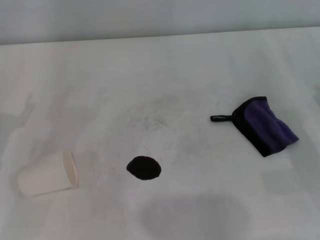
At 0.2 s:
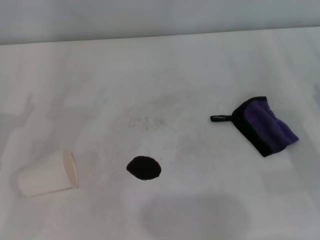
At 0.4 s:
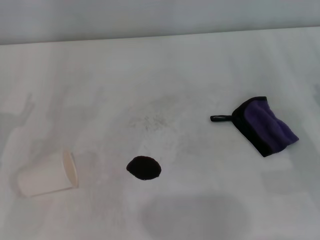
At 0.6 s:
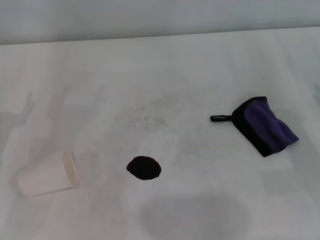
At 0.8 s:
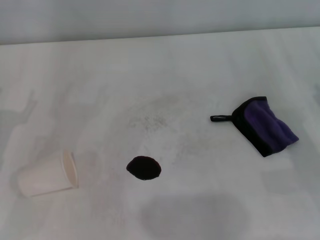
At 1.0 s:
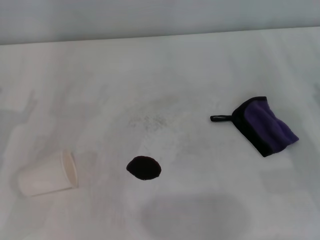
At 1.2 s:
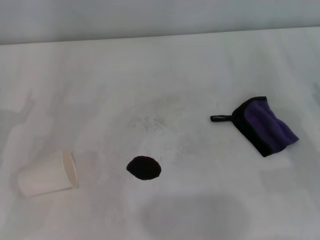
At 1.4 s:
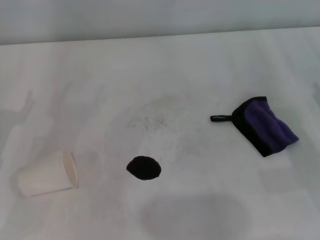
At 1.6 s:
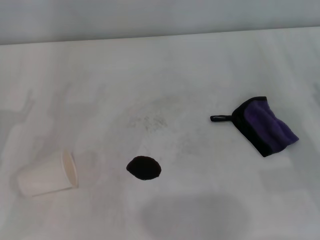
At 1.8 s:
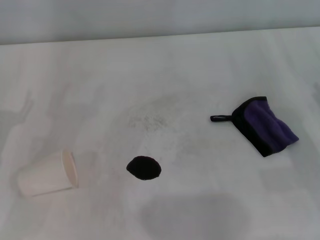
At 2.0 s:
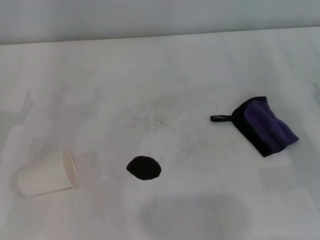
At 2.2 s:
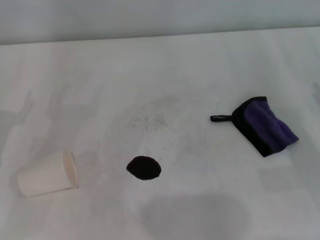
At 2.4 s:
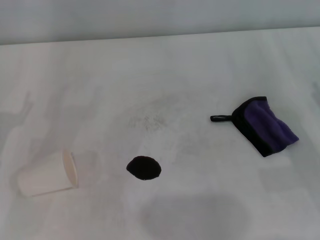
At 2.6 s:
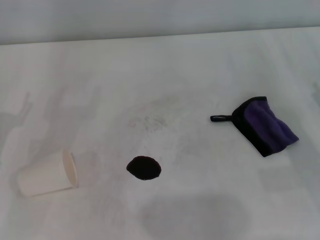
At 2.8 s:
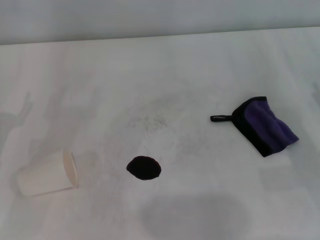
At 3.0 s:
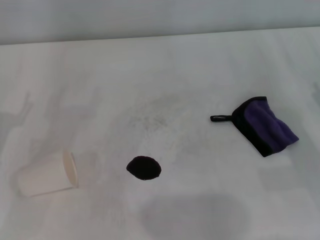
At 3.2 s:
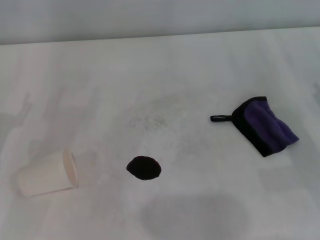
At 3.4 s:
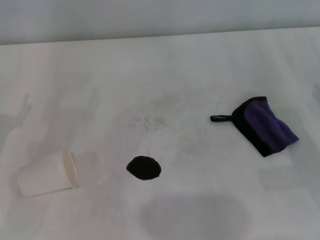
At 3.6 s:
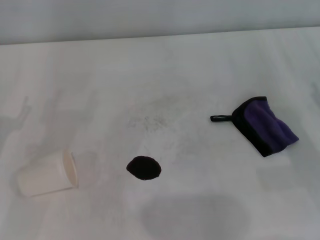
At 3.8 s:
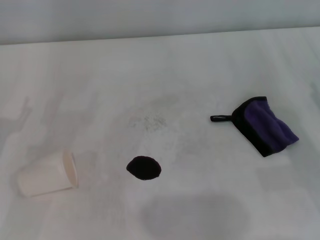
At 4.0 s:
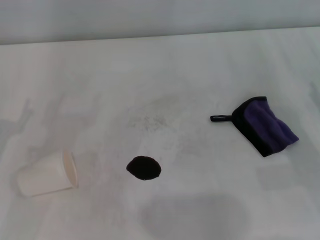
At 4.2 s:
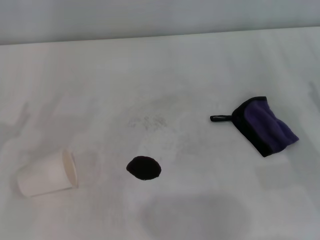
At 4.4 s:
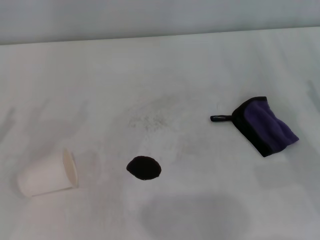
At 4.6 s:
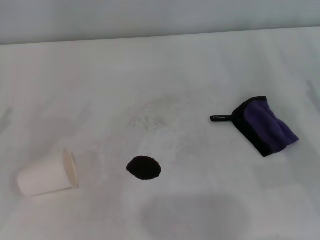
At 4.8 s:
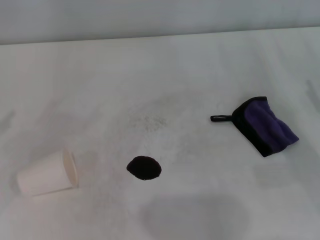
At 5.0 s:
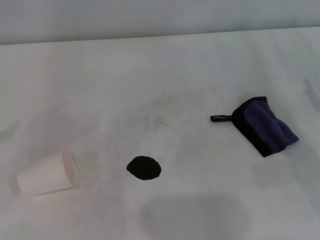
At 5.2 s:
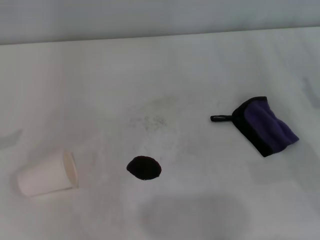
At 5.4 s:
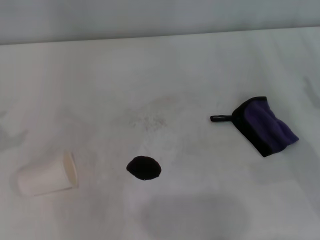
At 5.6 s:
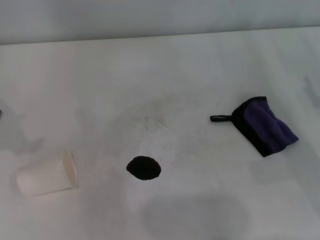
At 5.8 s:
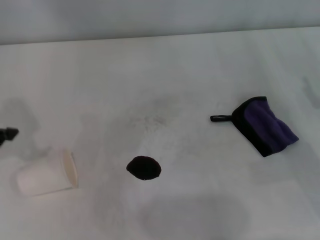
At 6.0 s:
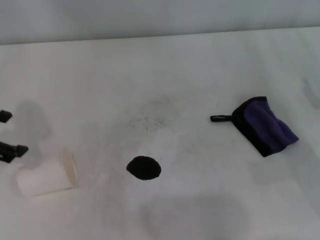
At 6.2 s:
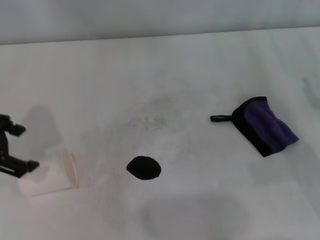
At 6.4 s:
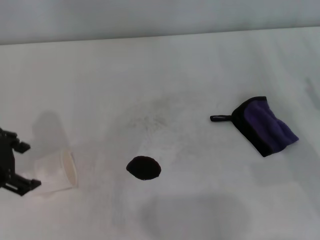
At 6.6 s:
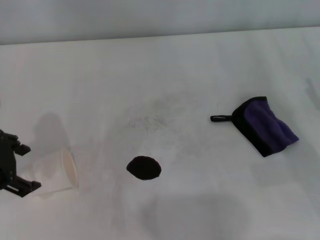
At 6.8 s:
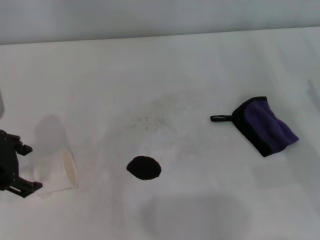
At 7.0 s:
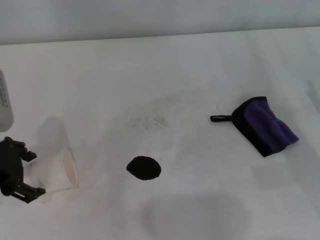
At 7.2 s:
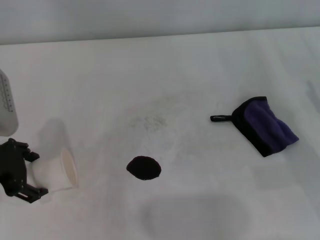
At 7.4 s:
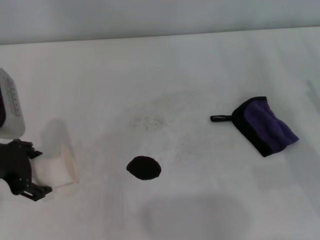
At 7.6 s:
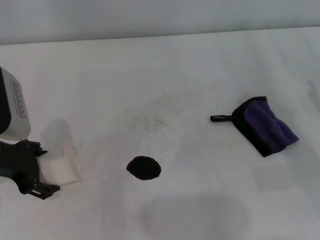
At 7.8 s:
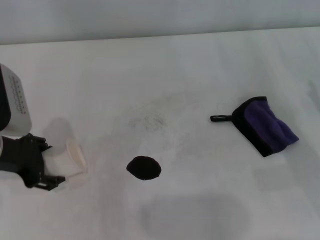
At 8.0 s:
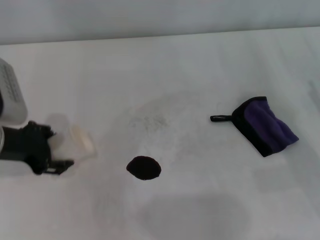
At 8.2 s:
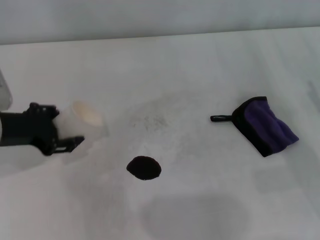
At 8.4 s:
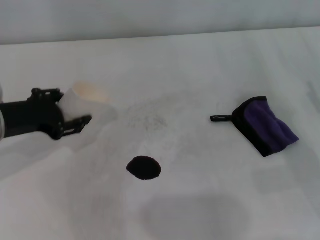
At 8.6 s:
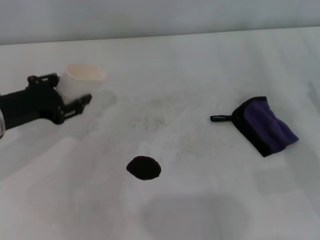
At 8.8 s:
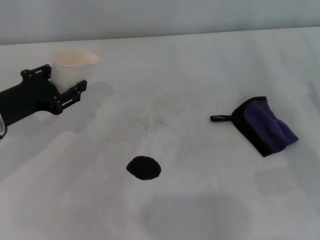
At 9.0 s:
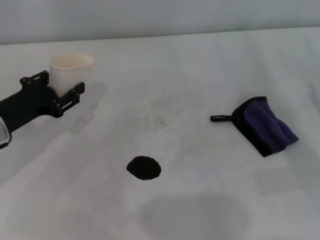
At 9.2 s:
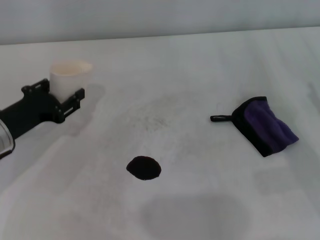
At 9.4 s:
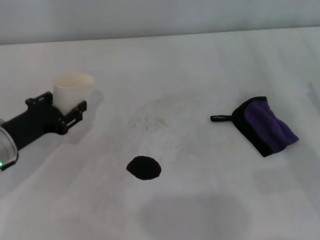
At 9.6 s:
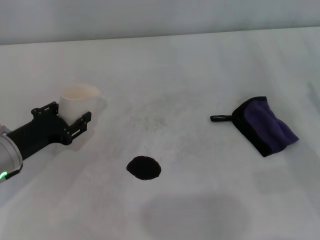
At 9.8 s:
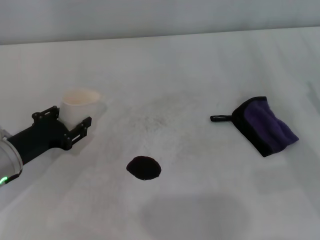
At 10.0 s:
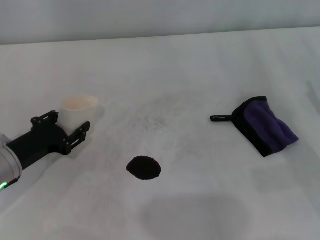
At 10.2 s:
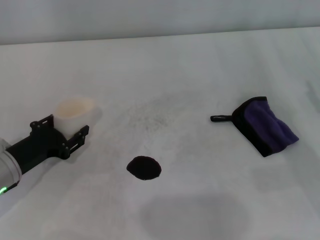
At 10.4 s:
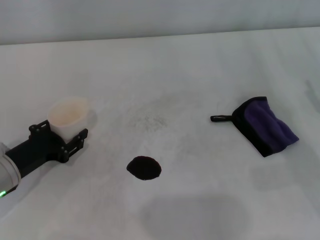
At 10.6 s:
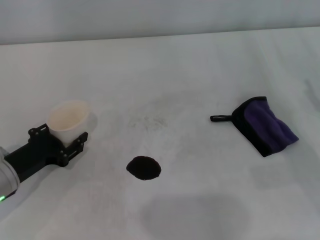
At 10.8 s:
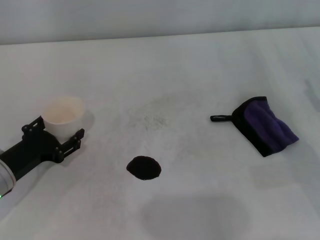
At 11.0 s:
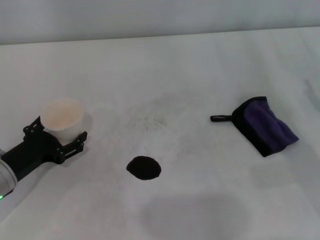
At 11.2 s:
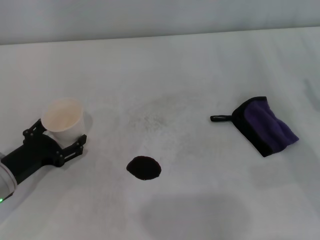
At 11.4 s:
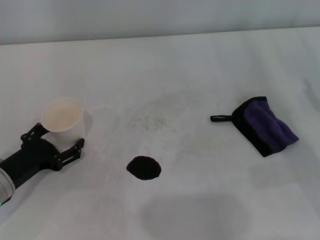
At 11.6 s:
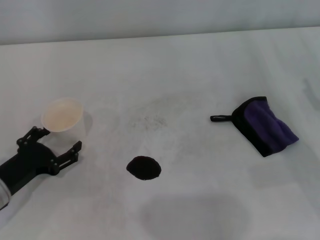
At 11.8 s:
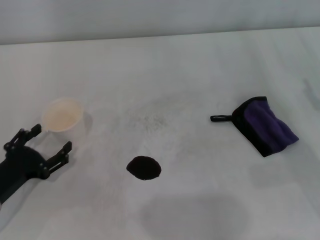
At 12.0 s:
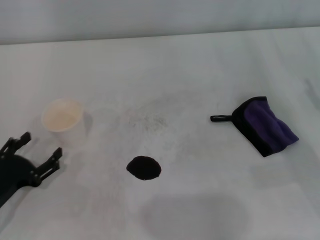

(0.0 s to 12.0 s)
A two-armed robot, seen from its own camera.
Step, 0.0 s - 7.4 s: Grasp the paper cup with the left gripper.
Step, 7.6 s - 11.2 s: Stand the paper cup upright with the left gripper.
0.0 s - 3.0 s: Both grippers stay about where they are.
4.4 s - 6.0 s: The left gripper is displaced upward, to the right and forward by about 20 cm.
6.0 s - 7.6 s: The left gripper travels downward by about 10 cm.
7.6 s - 9.0 s: The left gripper heads downward, covering some 5 cm, and closes.
9.0 s - 10.4 s: The left gripper moves downward, some 5 cm.
10.4 s - 12.0 s: The left gripper moves backward, about 5 cm, and opens its fingers.

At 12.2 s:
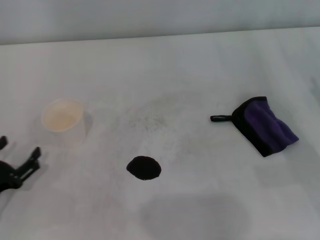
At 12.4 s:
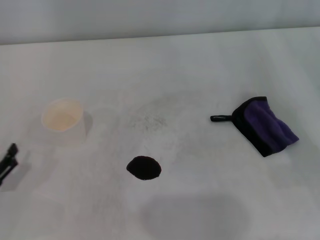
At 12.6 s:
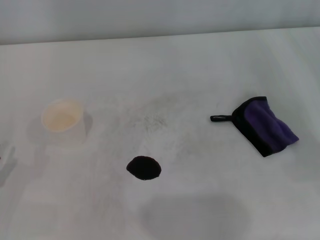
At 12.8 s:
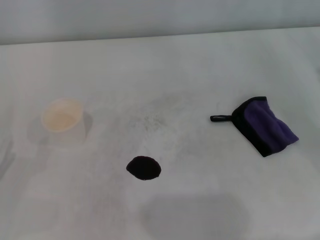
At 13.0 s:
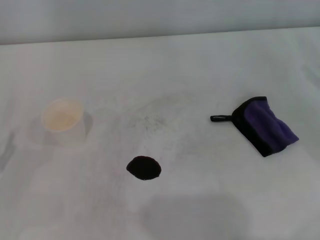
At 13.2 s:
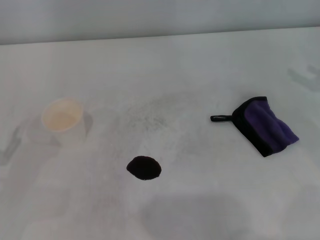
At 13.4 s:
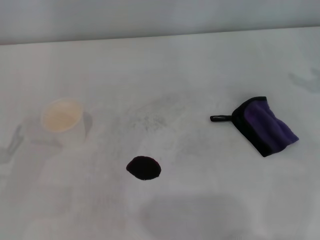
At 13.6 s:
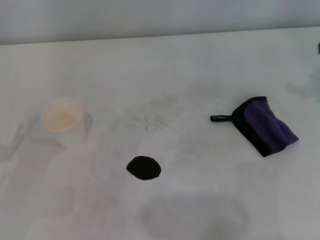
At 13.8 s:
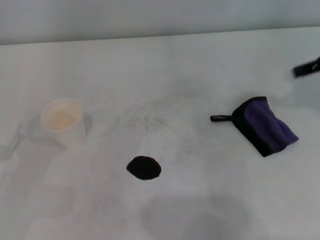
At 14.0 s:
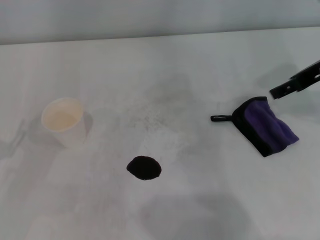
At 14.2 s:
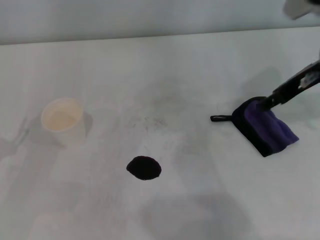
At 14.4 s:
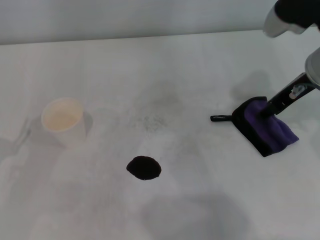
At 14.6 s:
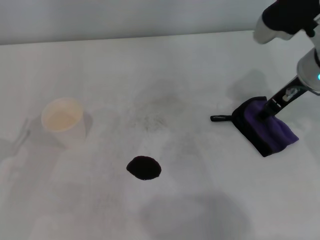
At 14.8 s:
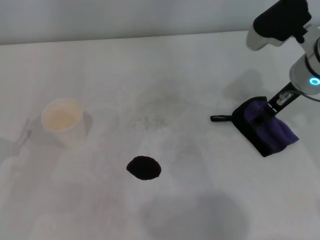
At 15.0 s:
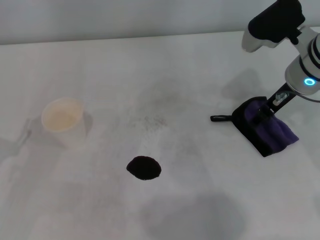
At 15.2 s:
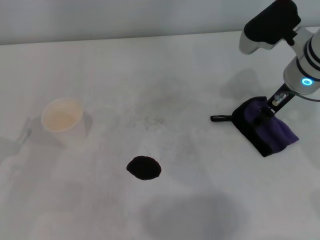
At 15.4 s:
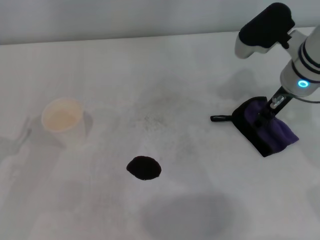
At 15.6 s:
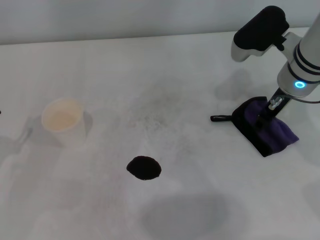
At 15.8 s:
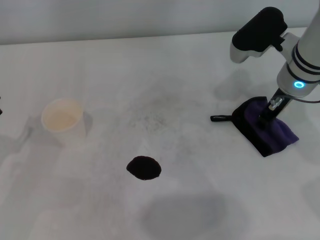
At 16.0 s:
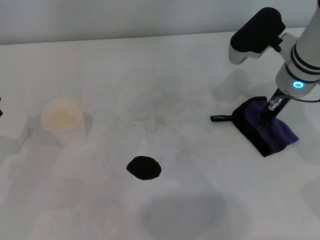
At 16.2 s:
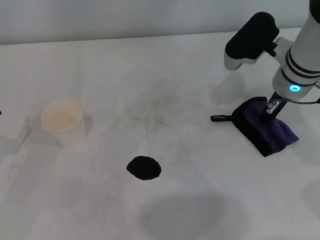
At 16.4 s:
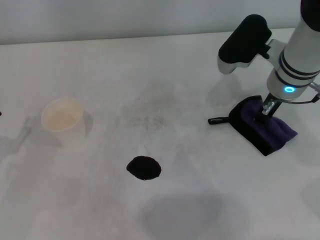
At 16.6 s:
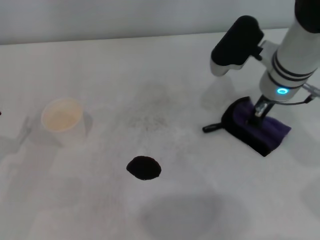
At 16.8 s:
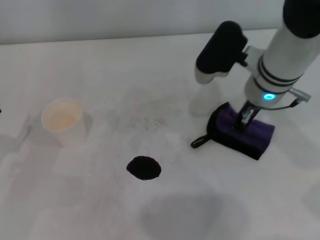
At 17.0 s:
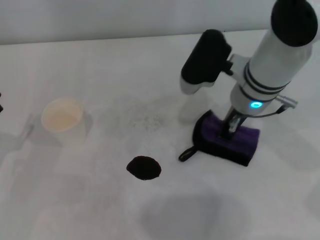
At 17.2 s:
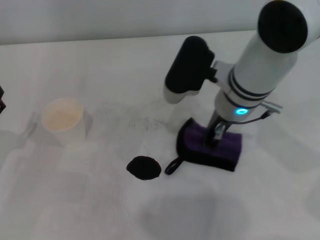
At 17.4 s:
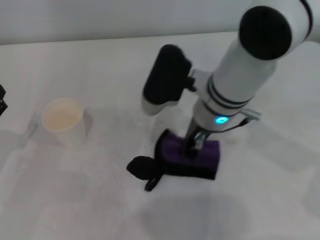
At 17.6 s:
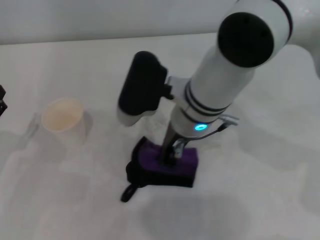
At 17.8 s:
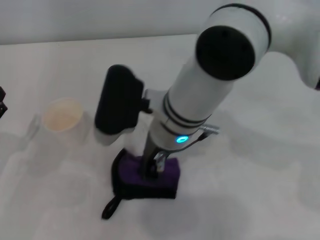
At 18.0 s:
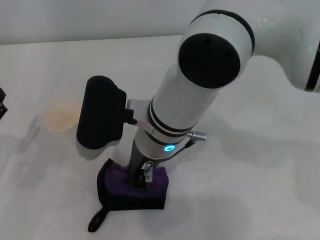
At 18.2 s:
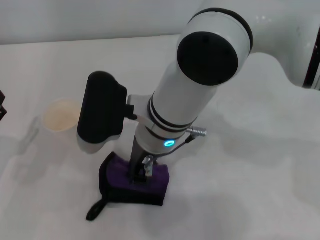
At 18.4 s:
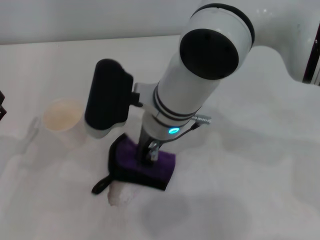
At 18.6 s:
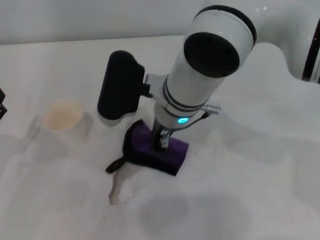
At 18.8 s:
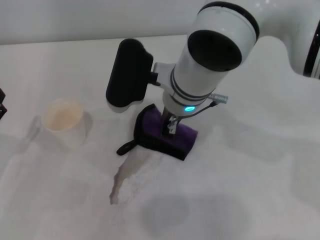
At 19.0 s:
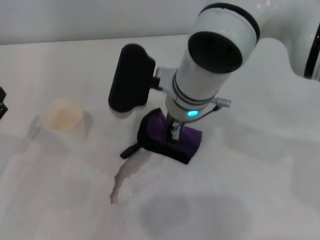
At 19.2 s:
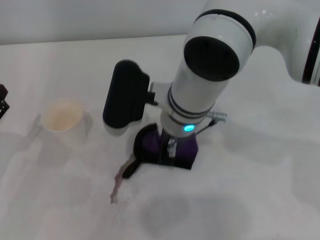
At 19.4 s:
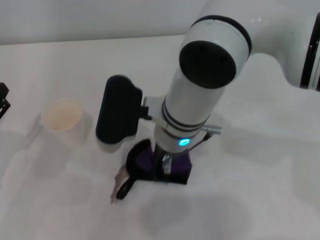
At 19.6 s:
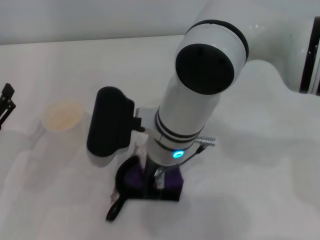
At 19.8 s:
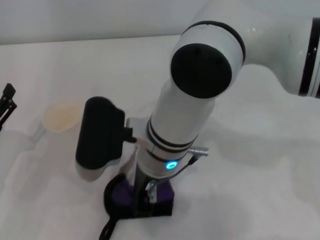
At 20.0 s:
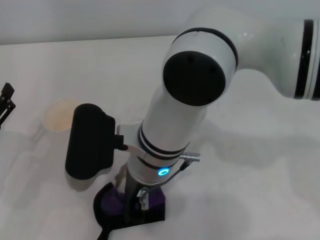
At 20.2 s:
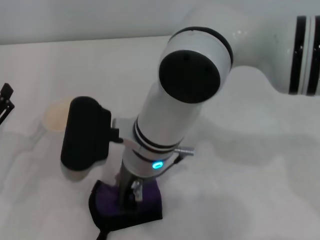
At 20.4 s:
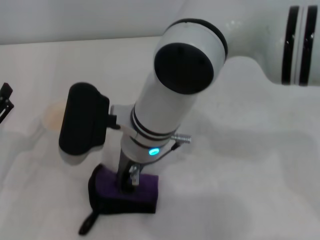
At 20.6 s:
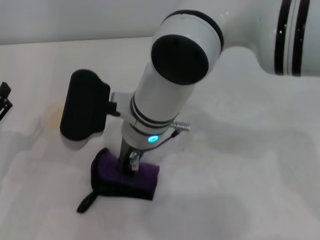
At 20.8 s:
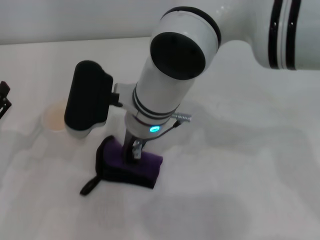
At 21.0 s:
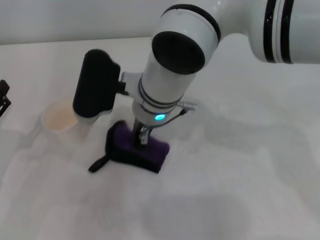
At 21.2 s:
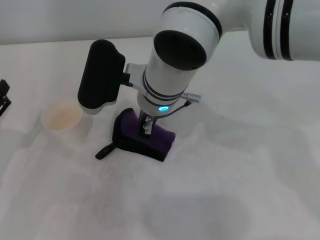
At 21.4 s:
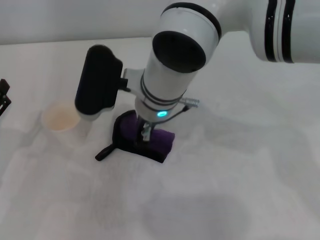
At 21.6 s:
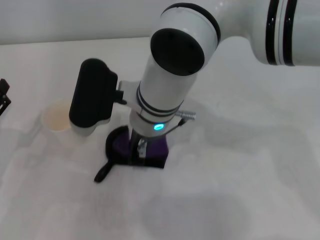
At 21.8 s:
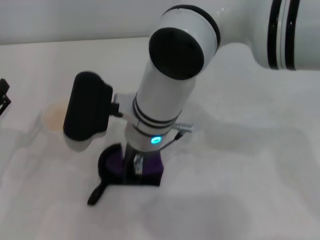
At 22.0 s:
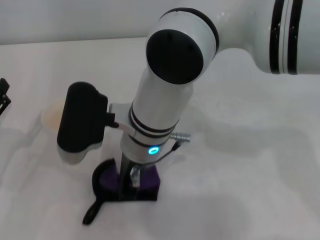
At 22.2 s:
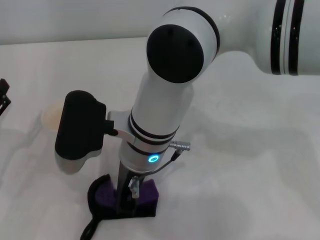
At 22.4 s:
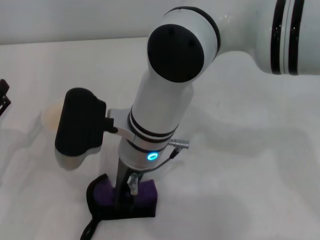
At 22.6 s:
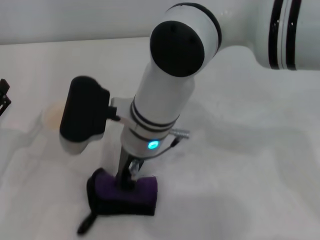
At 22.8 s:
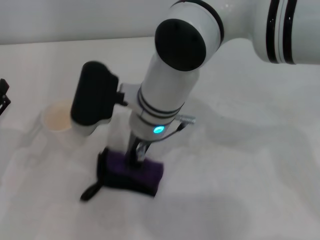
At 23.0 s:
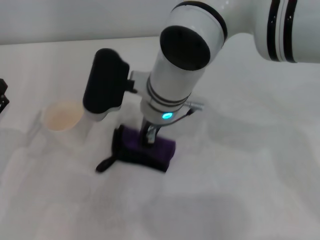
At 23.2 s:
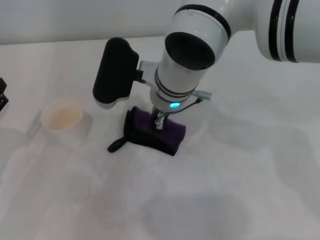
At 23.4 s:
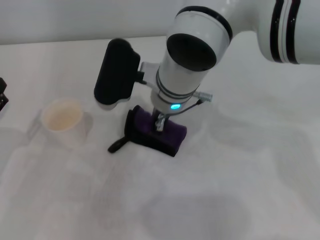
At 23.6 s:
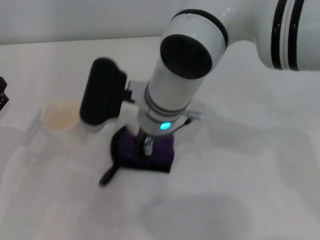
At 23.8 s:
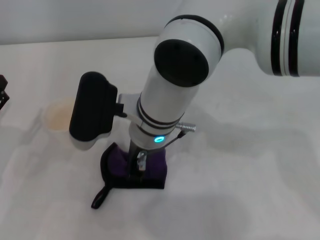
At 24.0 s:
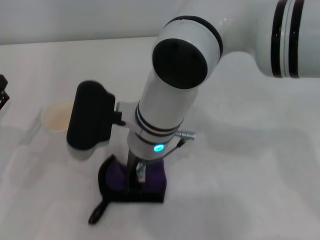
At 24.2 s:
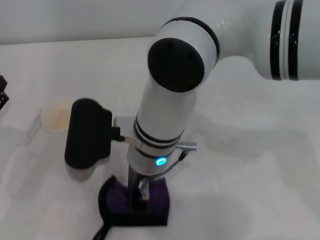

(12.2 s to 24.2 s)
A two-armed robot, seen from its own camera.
Step, 12.2 s - 16.2 s: Grasp the rag with the right gripper.
12.2 s - 13.8 s: The right gripper heads upward and forward, covering about 20 cm.
13.8 s - 15.2 s: The right gripper is displaced to the left and downward by roughly 15 cm.
15.2 s - 16.6 s: The right gripper closes up.
16.6 s - 18.2 s: The right gripper is displaced to the left by roughly 20 cm.
18.2 s - 19.8 s: There are only small adjustments of the grippers.
19.8 s - 21.2 s: The right gripper goes some 10 cm forward.
22.6 s - 24.2 s: The right gripper moves roughly 5 cm forward and comes back.
